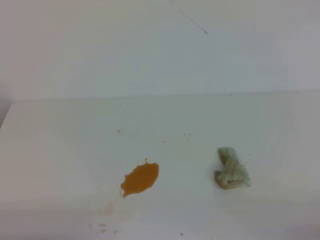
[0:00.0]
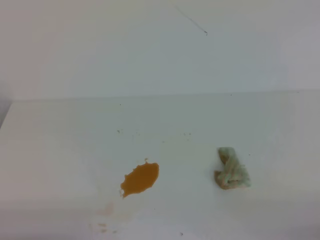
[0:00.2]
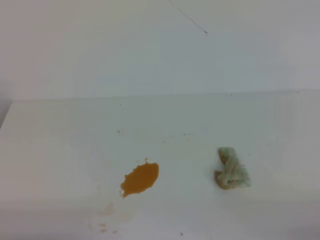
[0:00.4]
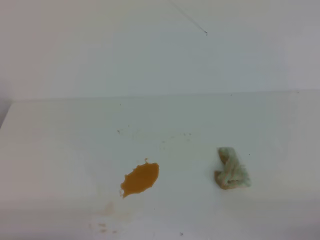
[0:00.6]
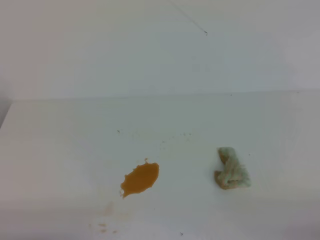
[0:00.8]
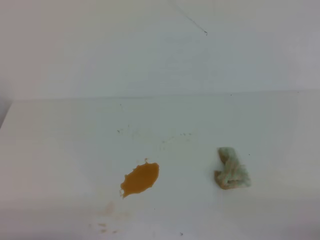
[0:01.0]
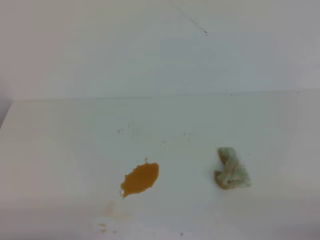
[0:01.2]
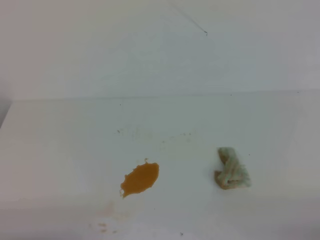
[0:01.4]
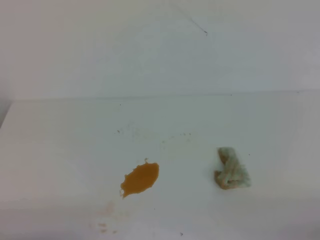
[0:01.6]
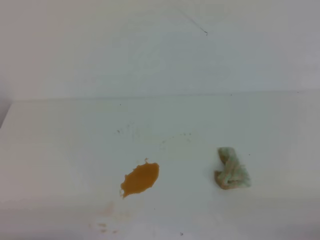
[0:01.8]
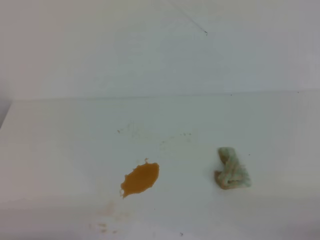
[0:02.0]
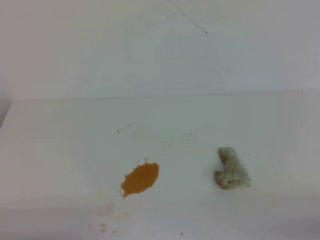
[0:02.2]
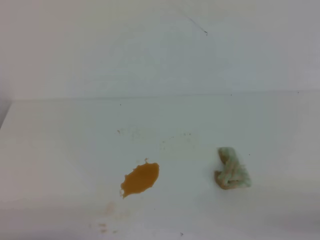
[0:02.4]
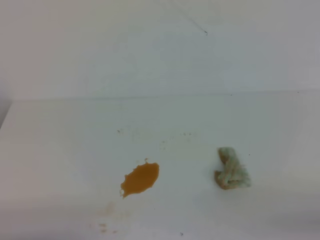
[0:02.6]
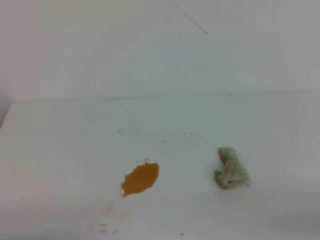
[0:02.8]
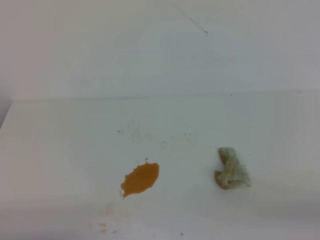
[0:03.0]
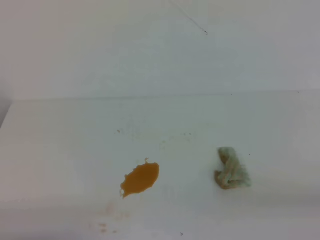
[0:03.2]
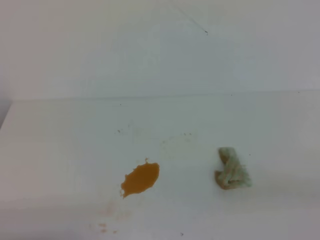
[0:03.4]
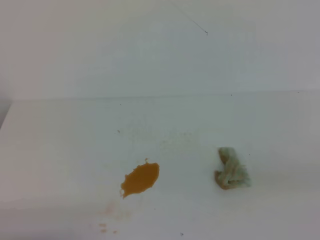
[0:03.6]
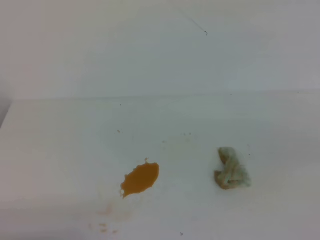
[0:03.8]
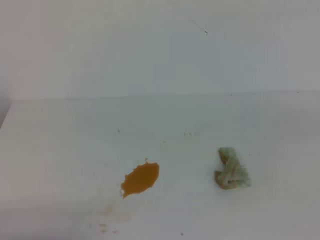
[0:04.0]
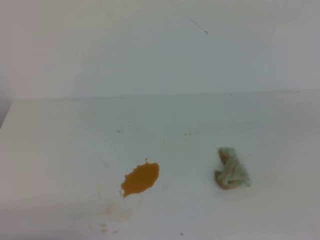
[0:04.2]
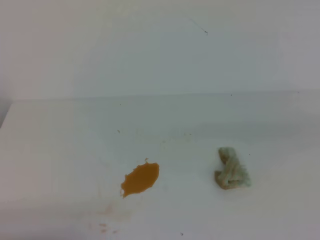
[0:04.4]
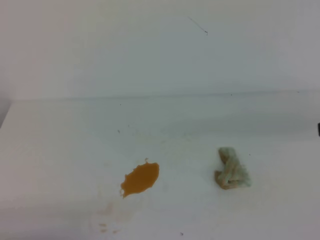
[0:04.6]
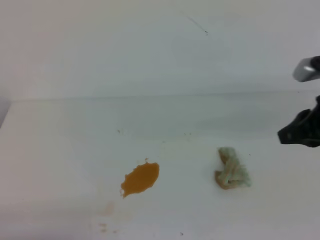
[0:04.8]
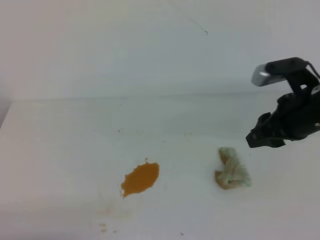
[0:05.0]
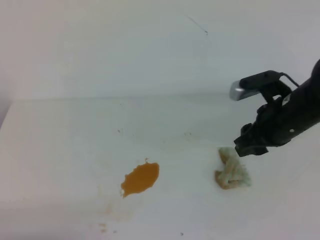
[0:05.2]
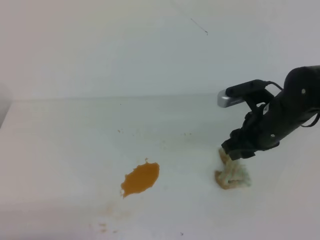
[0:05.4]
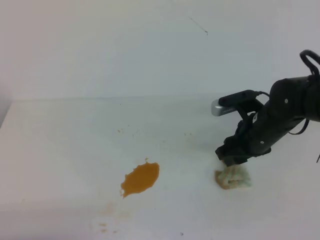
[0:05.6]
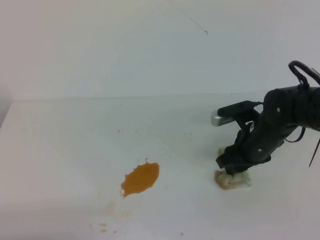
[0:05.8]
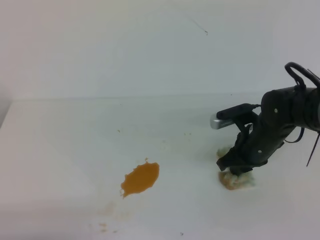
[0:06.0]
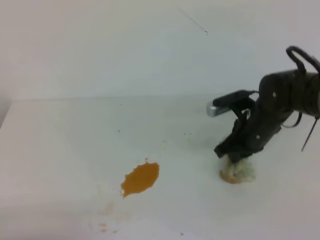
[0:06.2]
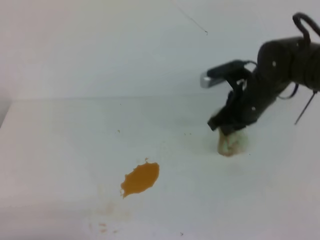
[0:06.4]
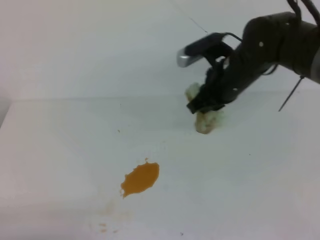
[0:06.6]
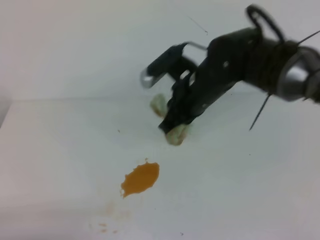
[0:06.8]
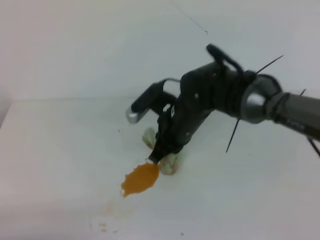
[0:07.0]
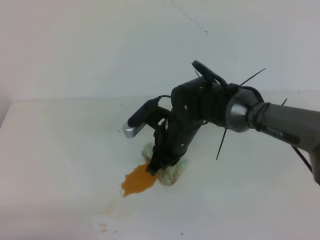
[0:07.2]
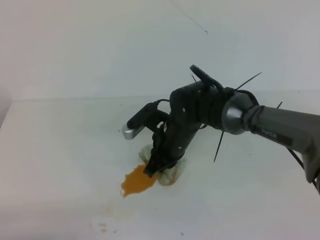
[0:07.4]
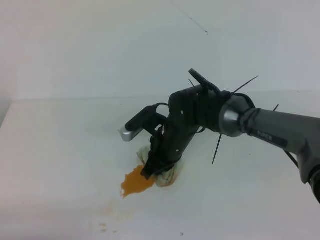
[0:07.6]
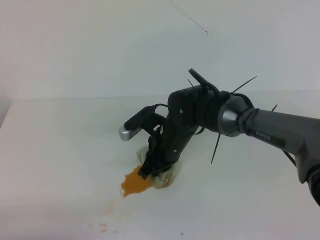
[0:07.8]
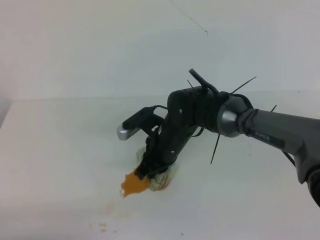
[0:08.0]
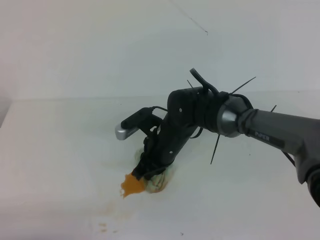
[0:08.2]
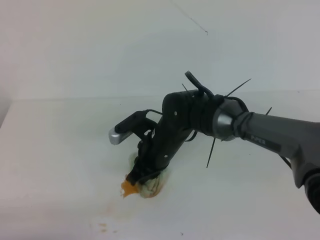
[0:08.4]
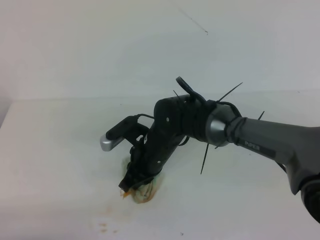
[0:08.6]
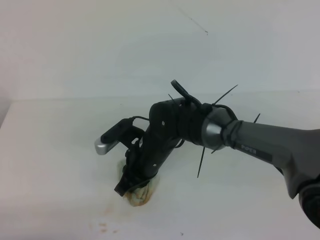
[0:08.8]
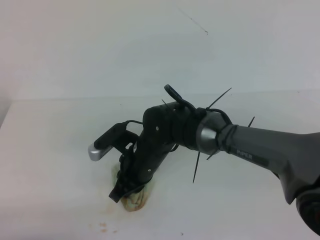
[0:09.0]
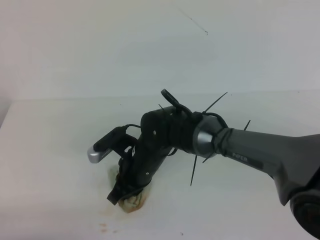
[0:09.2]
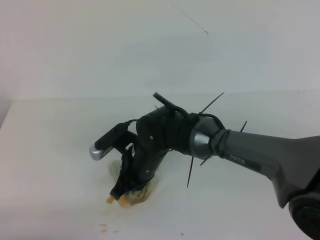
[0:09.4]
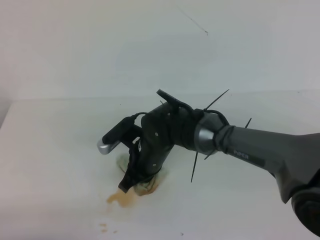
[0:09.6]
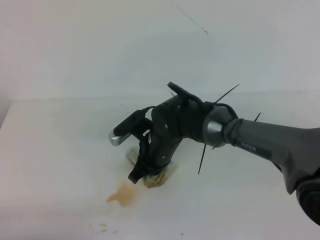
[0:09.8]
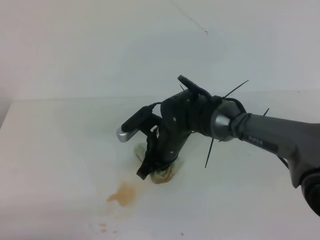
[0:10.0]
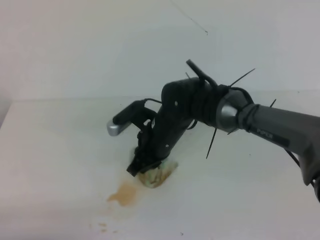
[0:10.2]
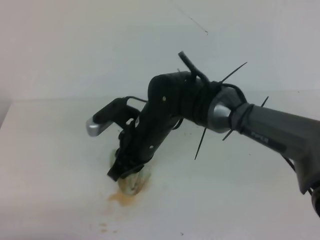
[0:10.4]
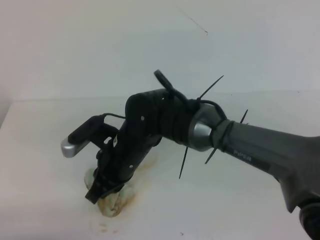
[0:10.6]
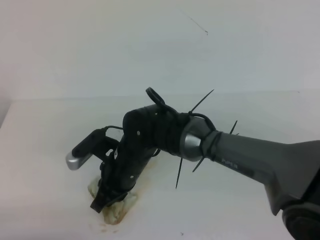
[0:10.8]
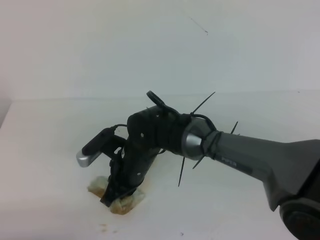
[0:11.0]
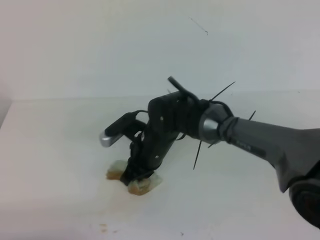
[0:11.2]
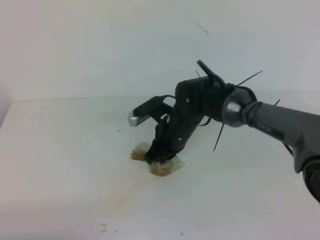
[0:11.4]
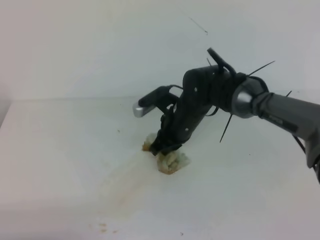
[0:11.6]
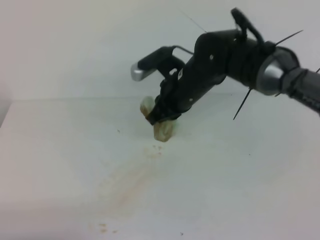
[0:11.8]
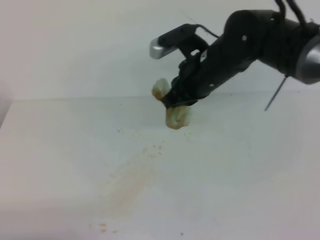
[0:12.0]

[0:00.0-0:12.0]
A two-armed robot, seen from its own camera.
0:00.0 to 0:01.6: Neither gripper changes place.
0:04.4 to 0:06.0: The right gripper is displaced downward, forward and to the left by approximately 30 cm, and opens its fingers.
0:06.0 to 0:07.6: The right gripper goes approximately 15 cm to the left, and closes.
0:07.6 to 0:09.0: The right gripper shifts by some 5 cm.
0:09.0 to 0:10.4: The grippers make only small movements.
0:10.4 to 0:12.0: The right gripper goes about 15 cm to the right and upward.

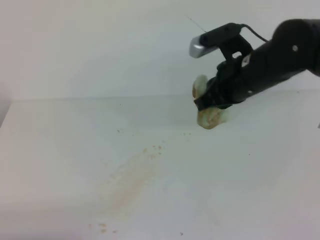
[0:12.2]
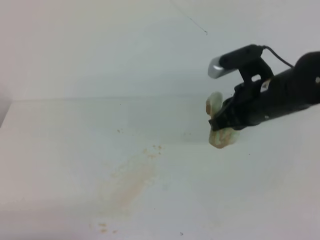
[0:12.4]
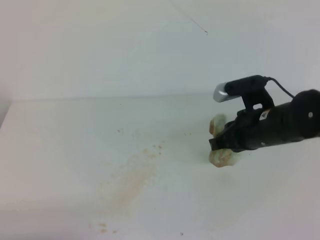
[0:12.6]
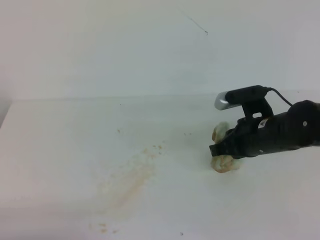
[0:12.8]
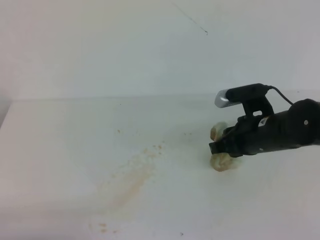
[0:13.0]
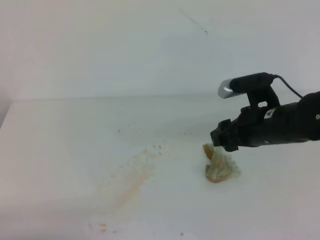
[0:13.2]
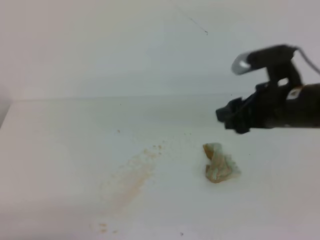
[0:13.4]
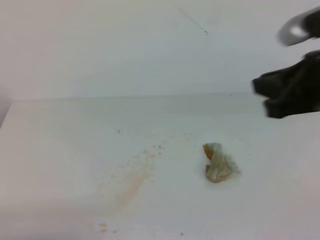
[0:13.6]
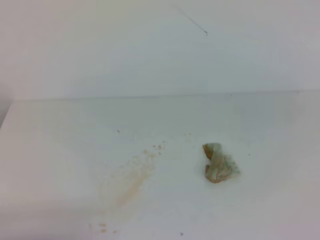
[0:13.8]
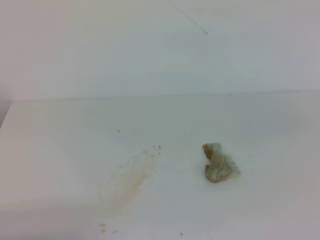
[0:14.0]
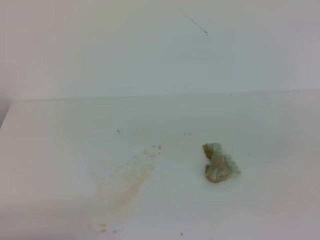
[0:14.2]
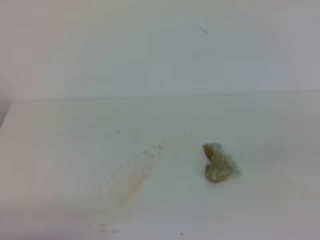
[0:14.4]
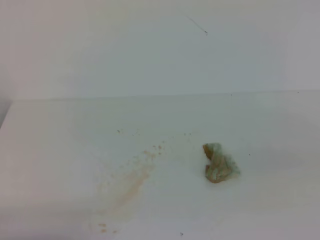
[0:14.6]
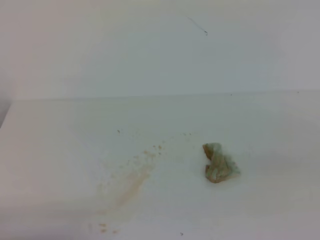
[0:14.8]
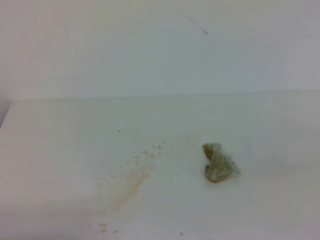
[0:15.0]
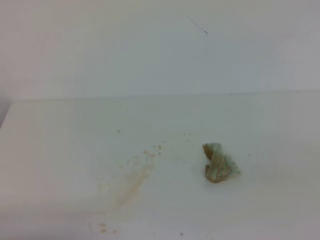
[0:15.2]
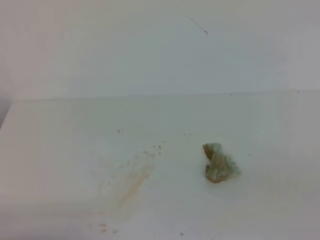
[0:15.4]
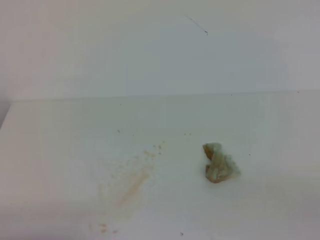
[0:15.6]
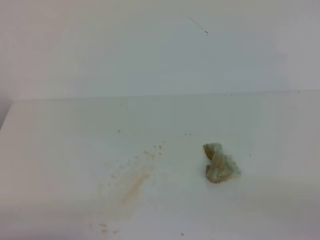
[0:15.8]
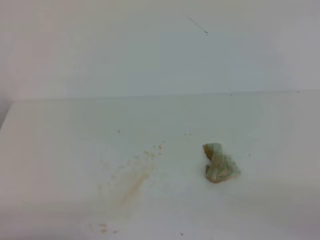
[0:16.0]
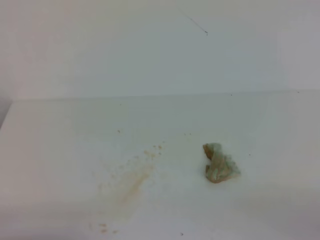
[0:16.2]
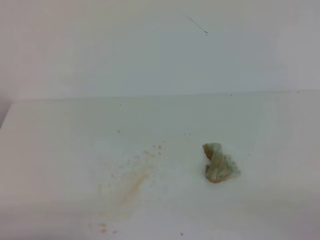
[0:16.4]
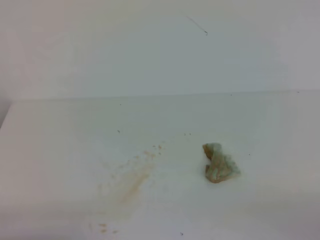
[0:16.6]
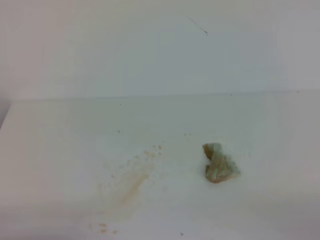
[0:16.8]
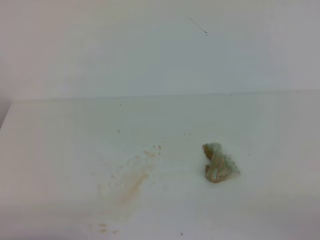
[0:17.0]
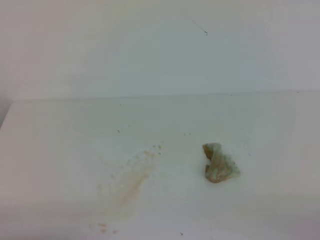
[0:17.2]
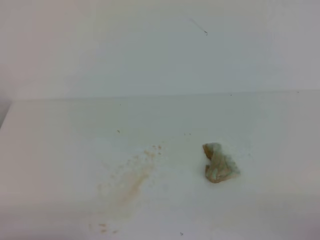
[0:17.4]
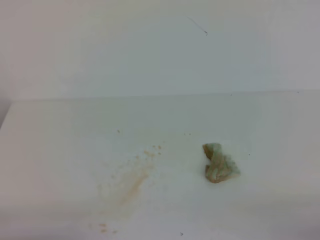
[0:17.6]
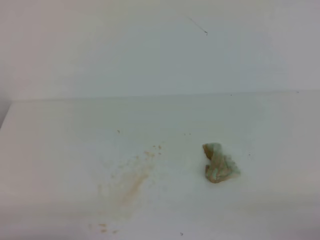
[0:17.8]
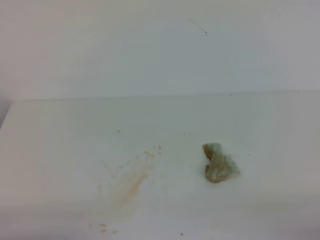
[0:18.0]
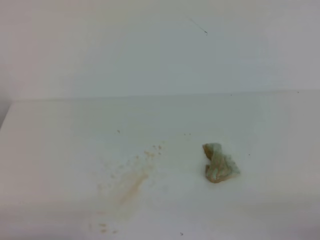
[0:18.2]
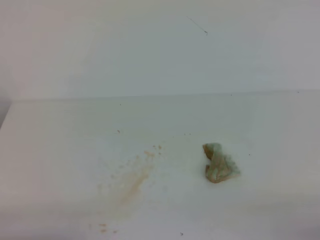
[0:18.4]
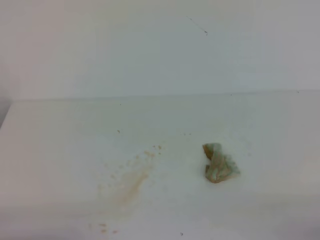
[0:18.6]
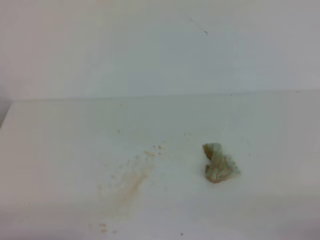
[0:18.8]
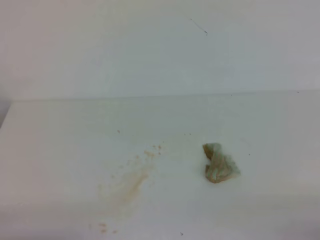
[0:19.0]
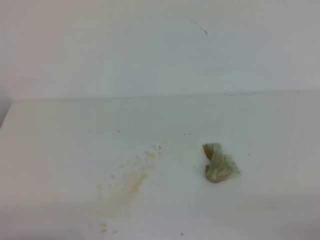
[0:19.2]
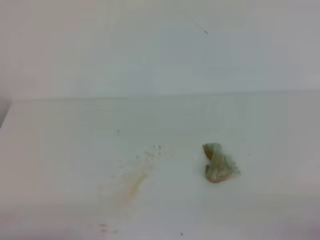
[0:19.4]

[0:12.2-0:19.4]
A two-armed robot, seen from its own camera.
0:12.2 to 0:13.6: The right gripper travels backward, to the right and upward by approximately 15 cm, and opens up.
0:13.6 to 0:15.0: The right gripper shifts about 20 cm backward and to the right, and closes.
0:18.0 to 0:19.4: Both grippers stay about where they are.

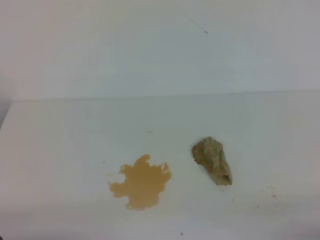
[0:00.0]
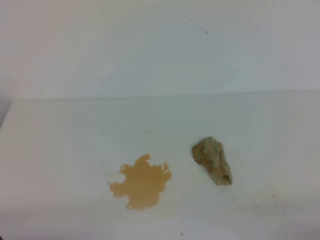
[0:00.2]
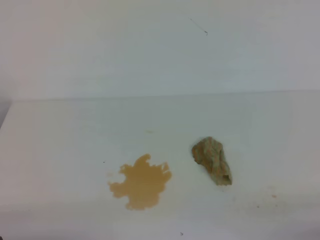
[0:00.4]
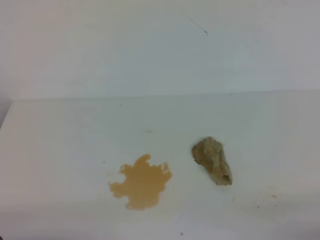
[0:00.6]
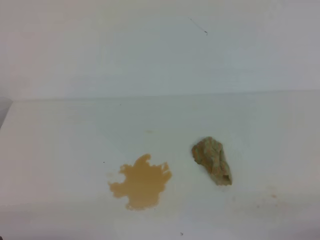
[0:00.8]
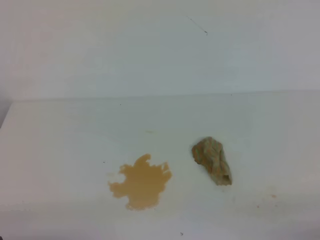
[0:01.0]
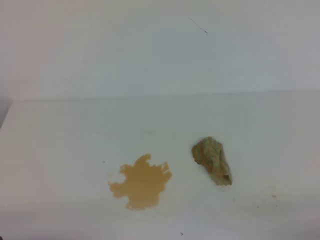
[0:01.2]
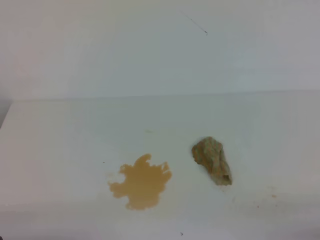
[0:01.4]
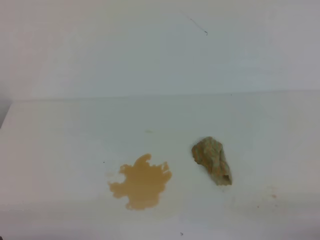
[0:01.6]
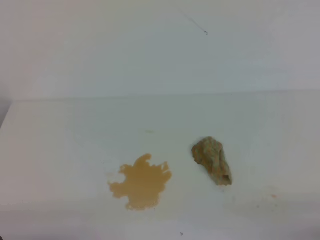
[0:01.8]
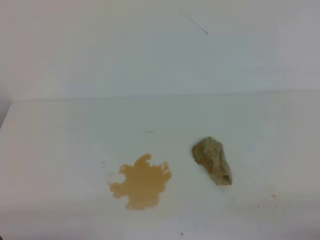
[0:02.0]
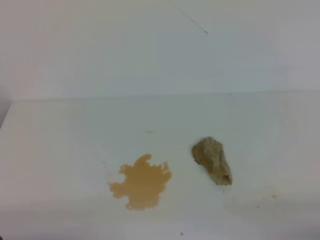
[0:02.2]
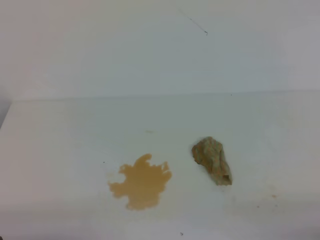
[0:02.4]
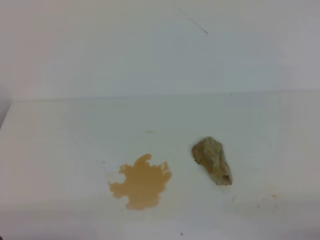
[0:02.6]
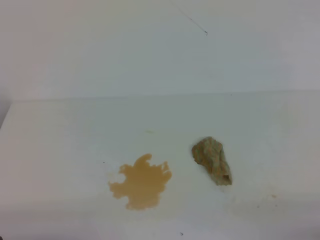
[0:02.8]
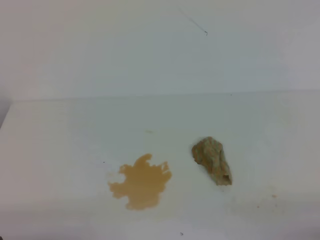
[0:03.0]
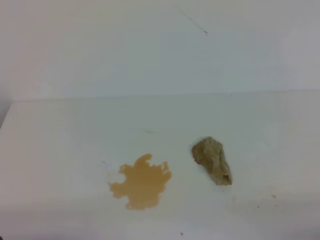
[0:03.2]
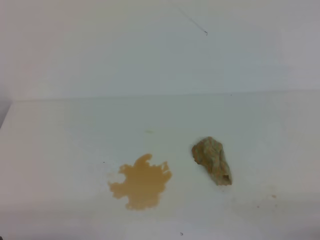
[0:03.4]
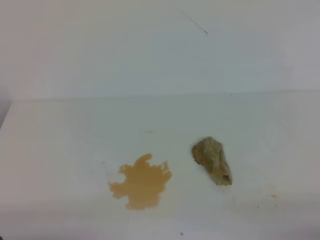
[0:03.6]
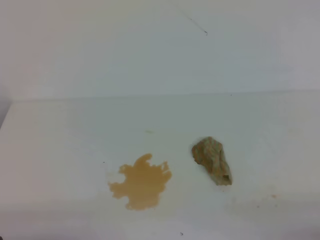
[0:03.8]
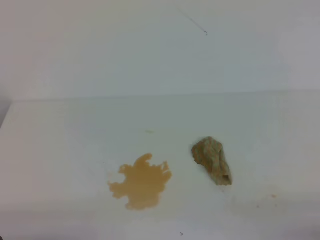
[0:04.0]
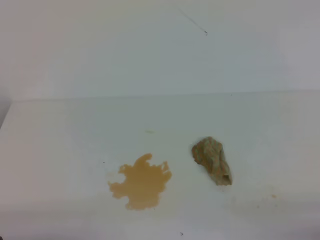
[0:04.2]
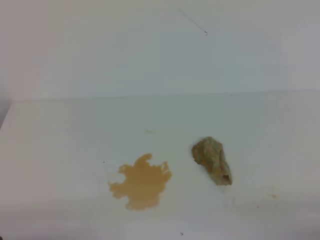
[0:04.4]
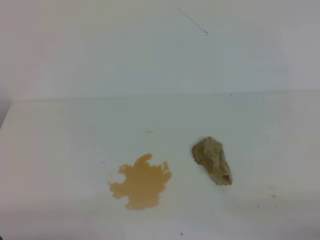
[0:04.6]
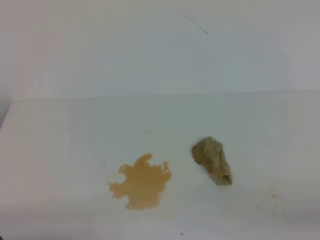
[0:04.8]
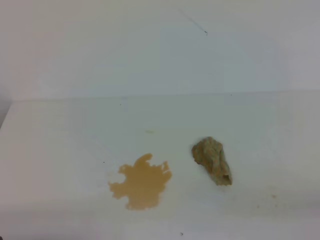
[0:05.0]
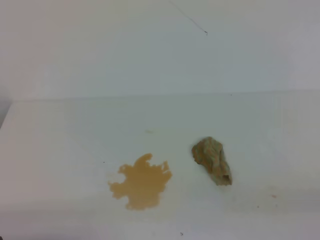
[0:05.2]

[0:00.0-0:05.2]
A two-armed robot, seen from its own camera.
0:00.0 to 0:03.4: The two grippers keep their place.
